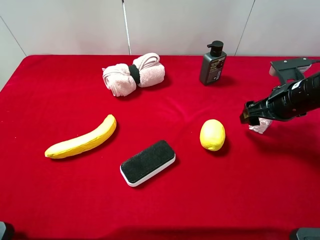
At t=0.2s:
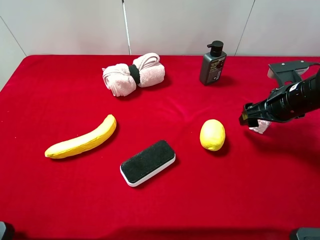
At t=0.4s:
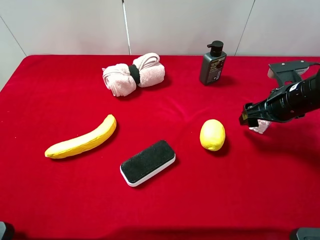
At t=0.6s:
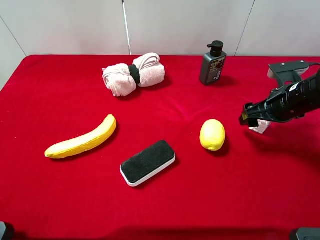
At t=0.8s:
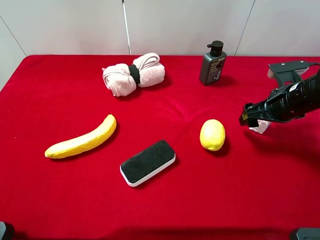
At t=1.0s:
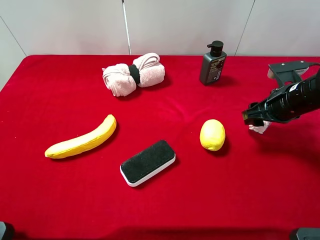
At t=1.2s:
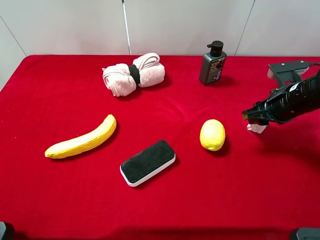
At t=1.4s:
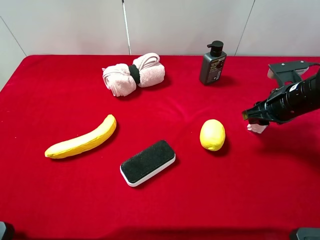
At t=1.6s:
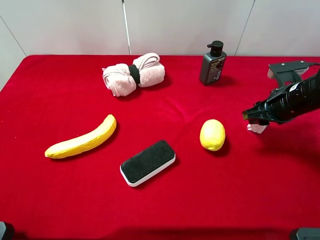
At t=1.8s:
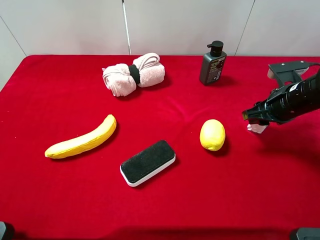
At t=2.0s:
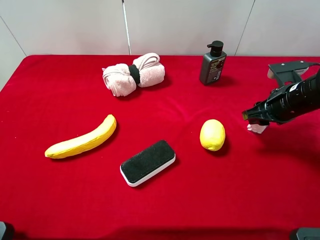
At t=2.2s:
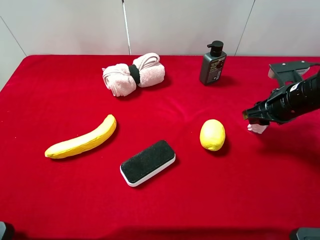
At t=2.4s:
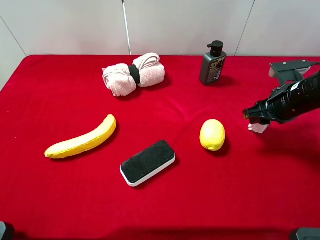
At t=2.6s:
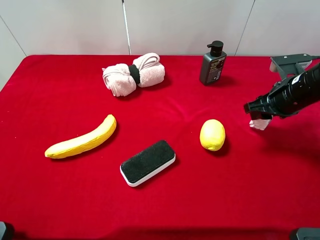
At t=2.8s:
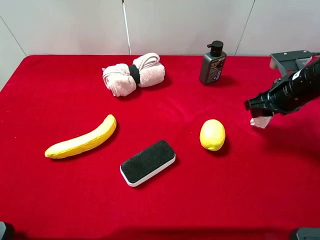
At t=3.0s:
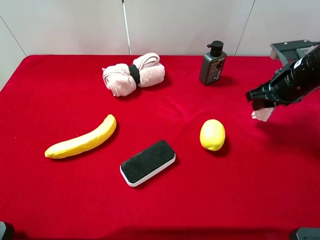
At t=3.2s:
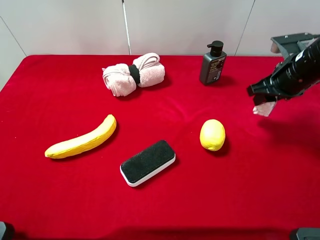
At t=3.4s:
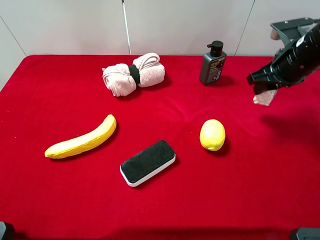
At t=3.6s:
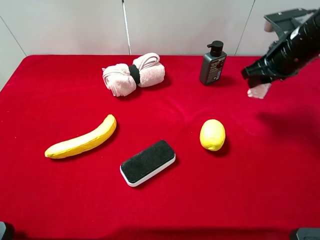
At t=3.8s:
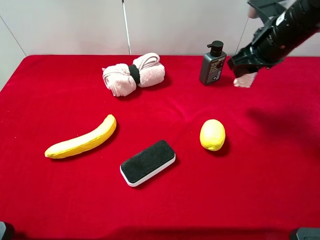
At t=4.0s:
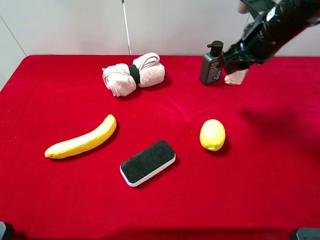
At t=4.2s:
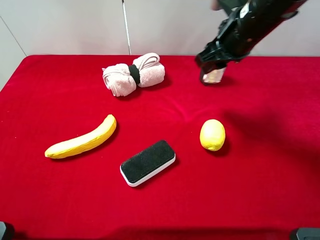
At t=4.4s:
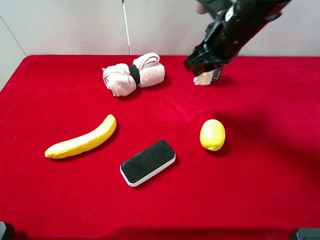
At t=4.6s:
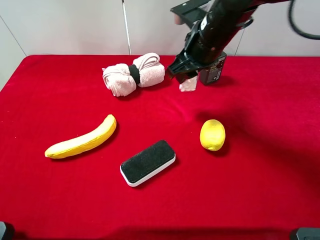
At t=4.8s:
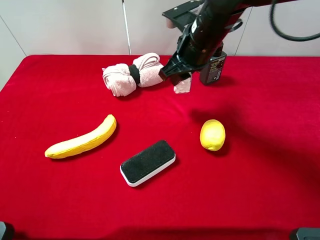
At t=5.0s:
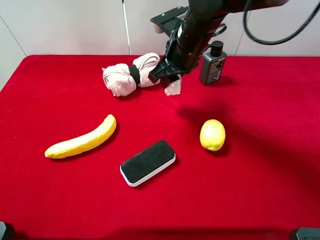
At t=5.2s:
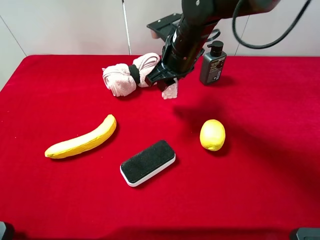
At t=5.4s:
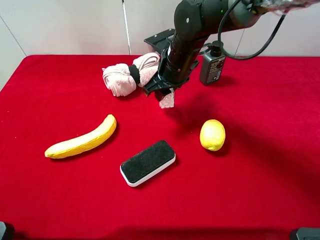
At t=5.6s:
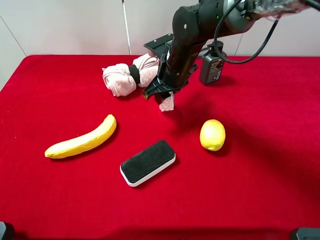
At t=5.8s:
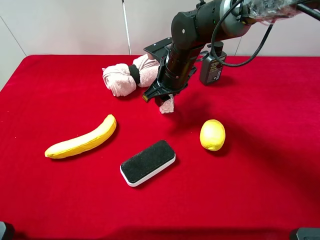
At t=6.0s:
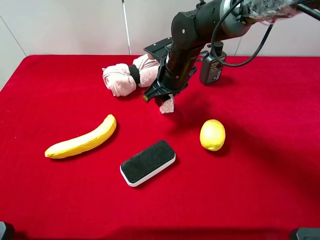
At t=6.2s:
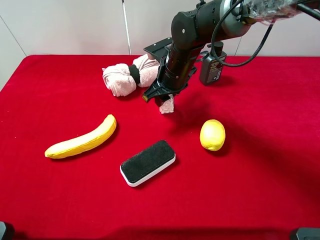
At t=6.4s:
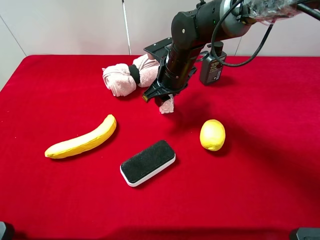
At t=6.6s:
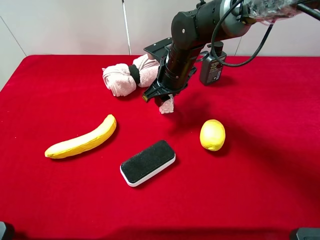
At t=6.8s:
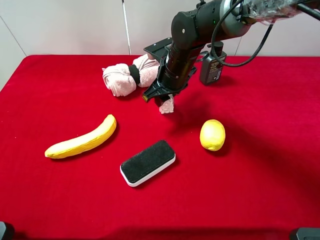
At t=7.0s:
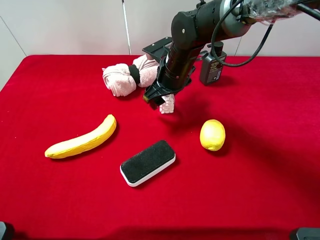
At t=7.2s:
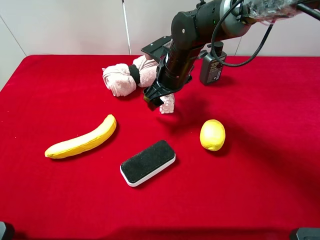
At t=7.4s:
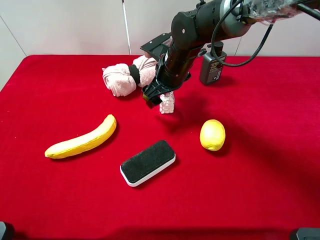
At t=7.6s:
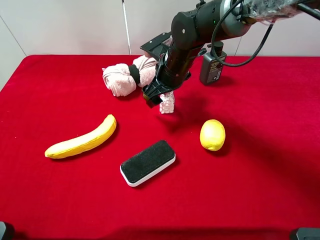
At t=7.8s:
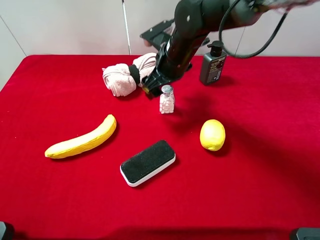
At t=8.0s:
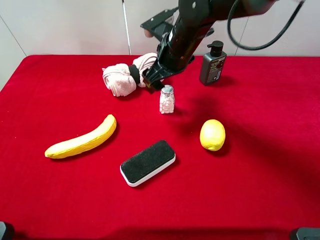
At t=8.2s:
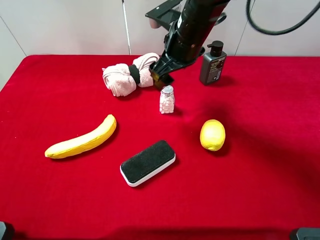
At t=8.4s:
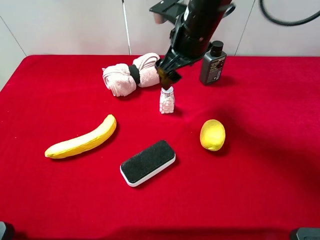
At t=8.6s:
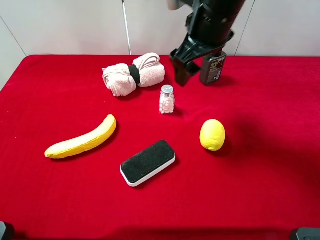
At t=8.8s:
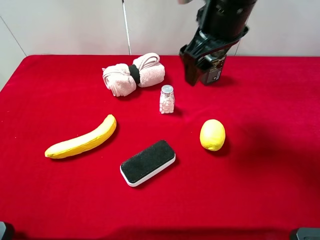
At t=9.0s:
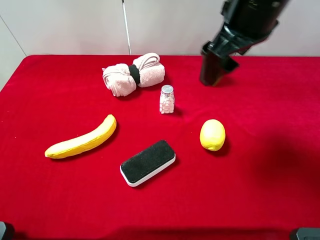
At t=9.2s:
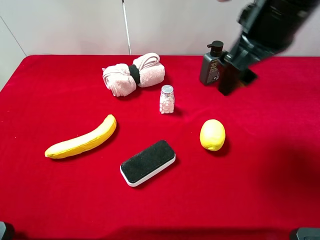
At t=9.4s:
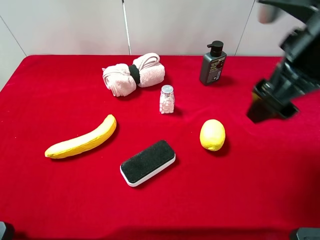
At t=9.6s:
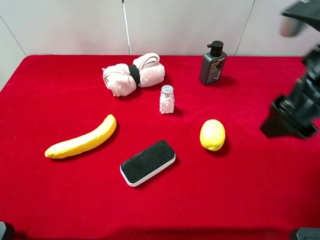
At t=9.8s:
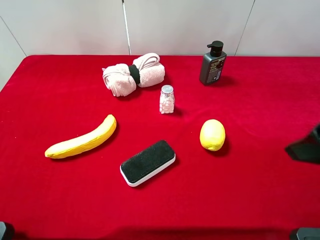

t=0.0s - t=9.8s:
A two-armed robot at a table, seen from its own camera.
Task of the whole recording: the gripper move the object.
Step, t=1.4s - t=8.0s: Place the mint candy on the table with the right gripper.
t=0.0s - t=1.4s: The right gripper closes.
t=1.4s - t=2.8s: There are only small adjustments of the grippers.
t=2.8s - t=4.2s: The right gripper goes roughly 15 cm to the left and upward.
t=4.2s - t=5.6s: The right gripper travels downward and to the left by about 15 cm.
t=5.6s - t=7.0s: The right gripper opens its fingers.
t=7.0s - t=8.4s: The right gripper goes roughly 10 cm upward.
t=8.4s - t=9.8s: The right gripper moves backward and to the right, approximately 25 cm.
